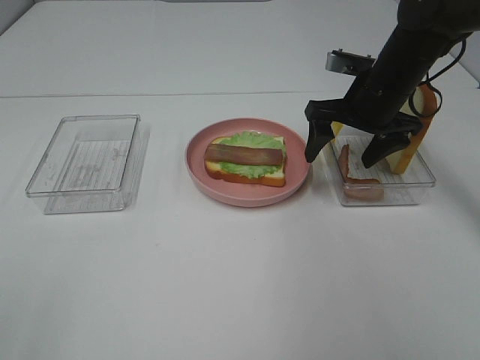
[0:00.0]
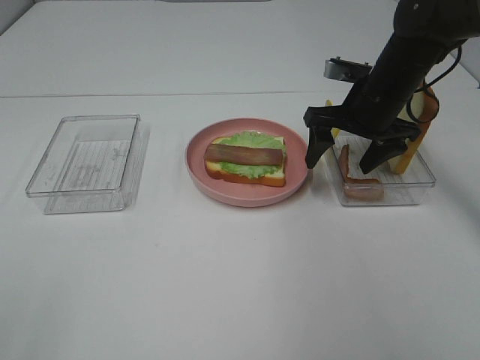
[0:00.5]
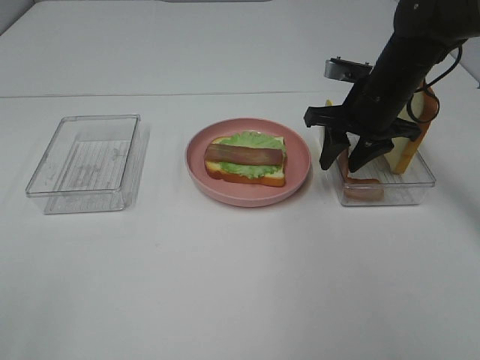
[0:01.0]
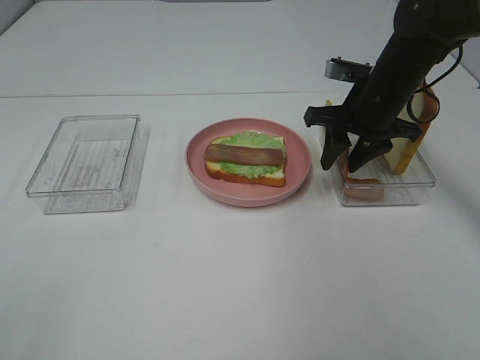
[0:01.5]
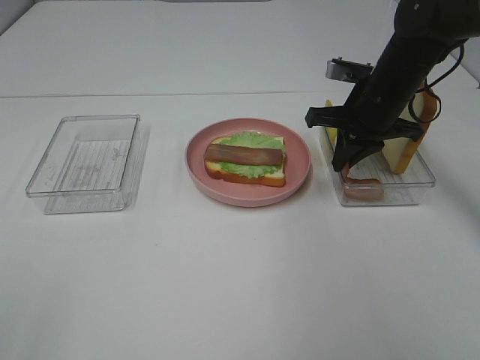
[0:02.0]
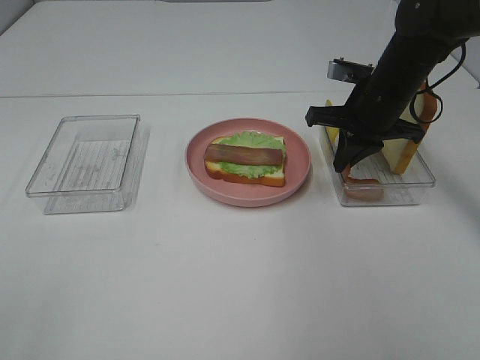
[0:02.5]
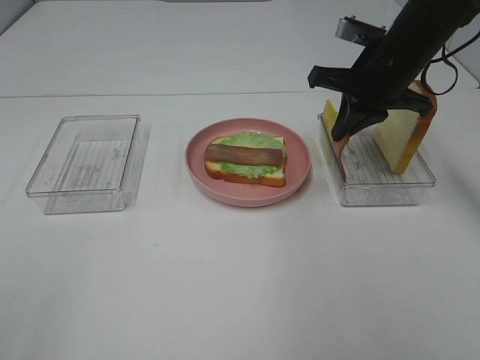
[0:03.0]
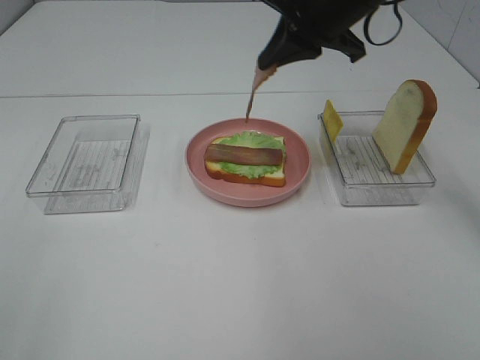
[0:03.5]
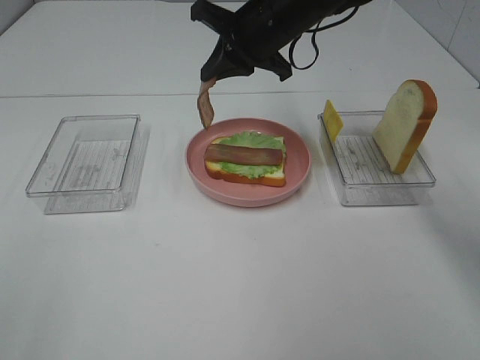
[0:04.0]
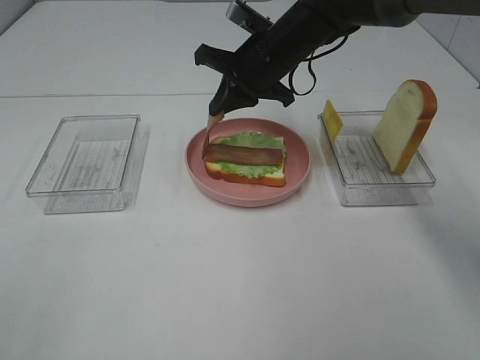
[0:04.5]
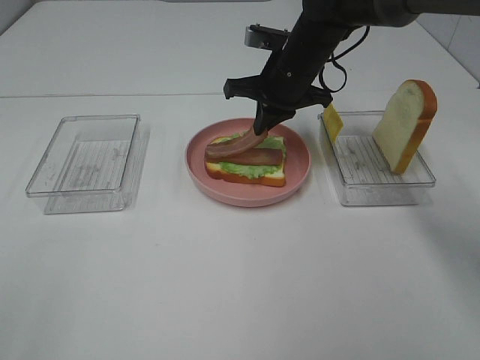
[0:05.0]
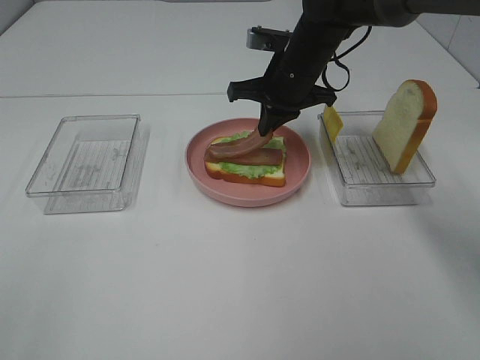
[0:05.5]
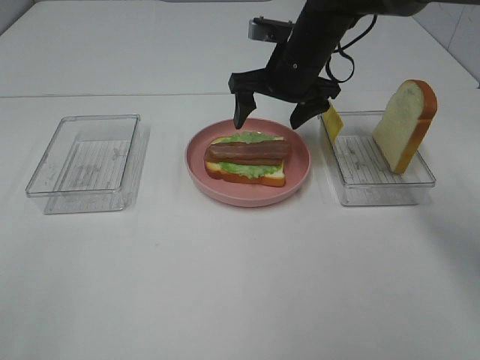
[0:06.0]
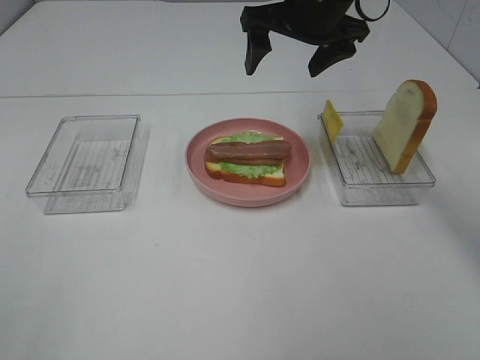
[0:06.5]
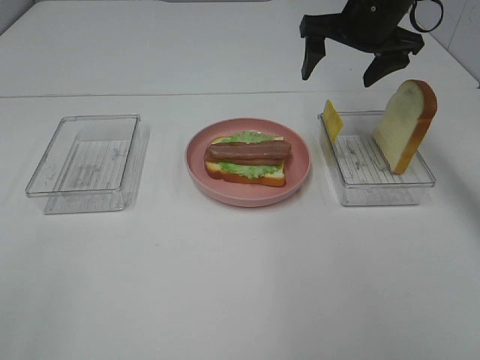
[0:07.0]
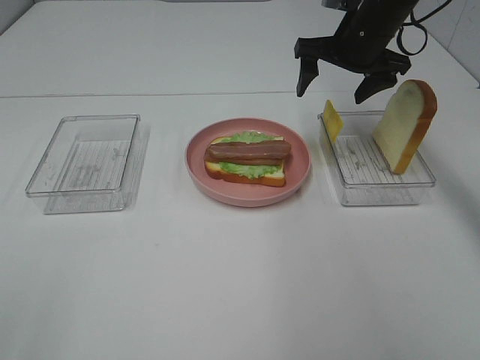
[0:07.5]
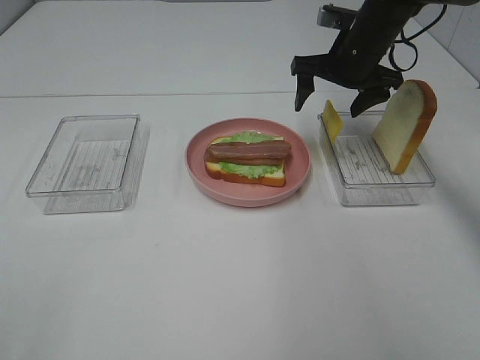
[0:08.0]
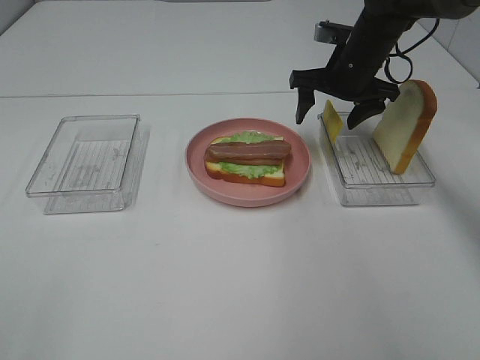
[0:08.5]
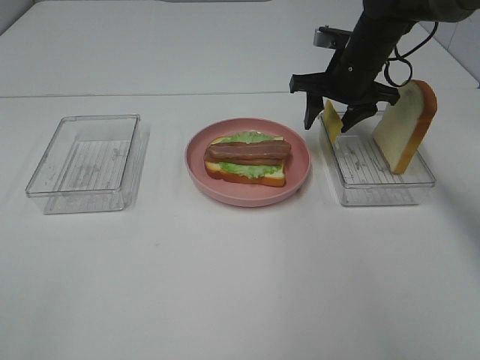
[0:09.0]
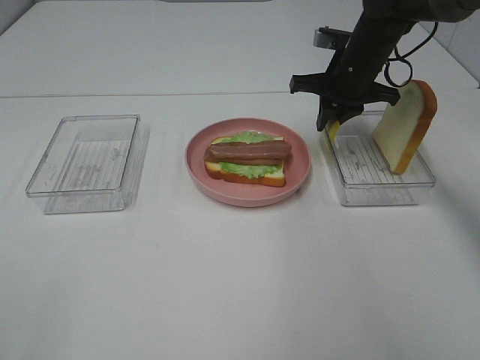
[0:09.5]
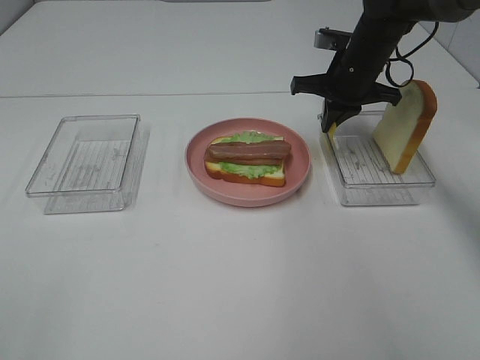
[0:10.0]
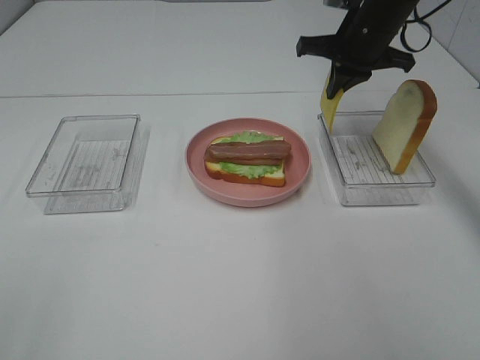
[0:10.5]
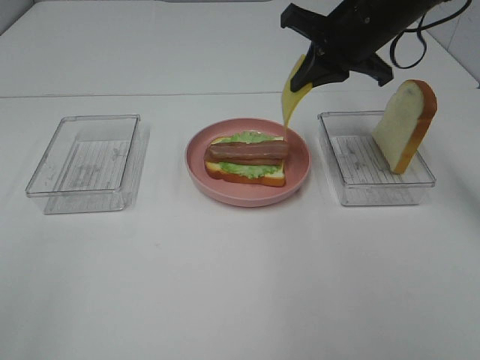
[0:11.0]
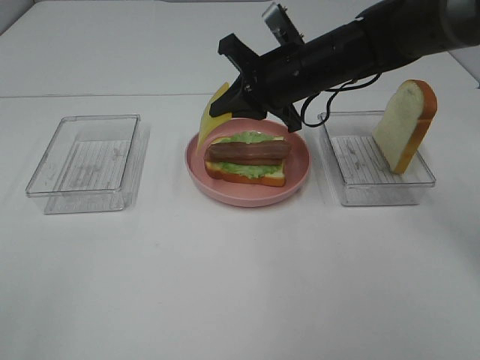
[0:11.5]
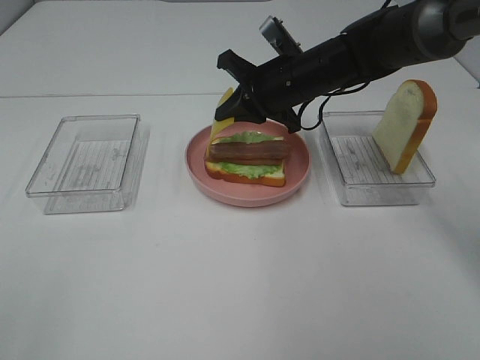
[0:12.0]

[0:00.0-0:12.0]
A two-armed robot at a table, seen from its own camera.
Task of the whole recording: Make sandwiches.
Step, 0:00.0 to 0:02.0: Right hand:grab the bacon.
Step, 0:02.5 to 0:06.0: Right hand:place bacon on bacon.
Step, 0:06.5 to 0:09.5: Right hand:grab the cheese slice.
0:00.0 to 0:02.0: The right gripper closes.
0:02.0 to 0:04.0: The right gripper travels to the left and upward by about 15 cm.
0:04.0 to 0:06.0: The right gripper ends up approximately 5 cm from where it was, and opens its fingers.
0:06.0 to 0:08.0: The right gripper goes approximately 10 cm to the right.
0:08.0 to 0:10.0: The right gripper closes its fingers.
0:10.0 to 0:12.0: The right gripper travels to the left and backward by some 10 cm.

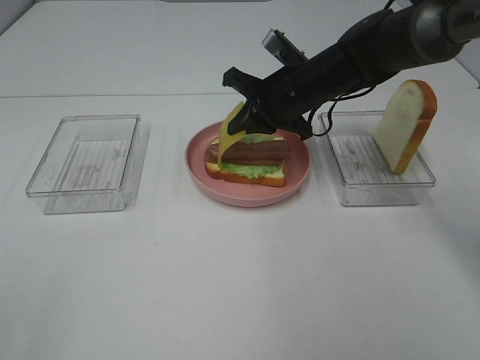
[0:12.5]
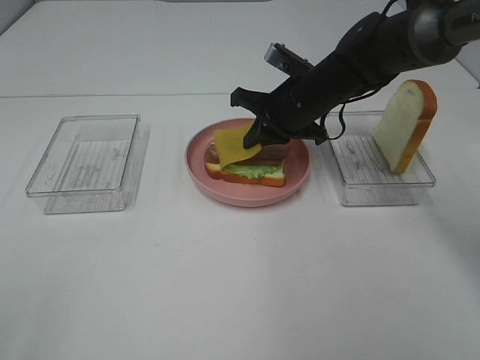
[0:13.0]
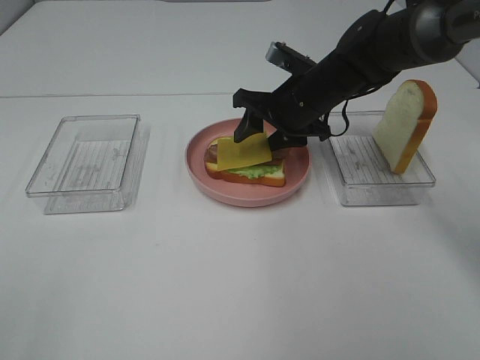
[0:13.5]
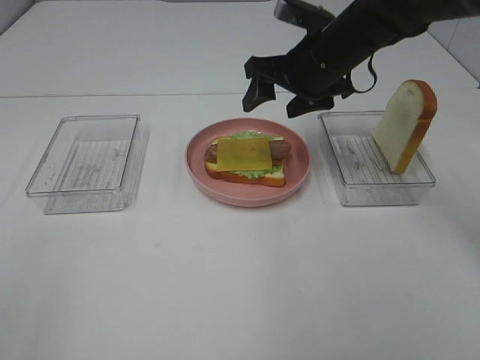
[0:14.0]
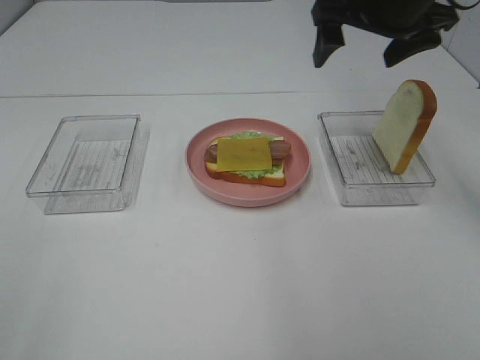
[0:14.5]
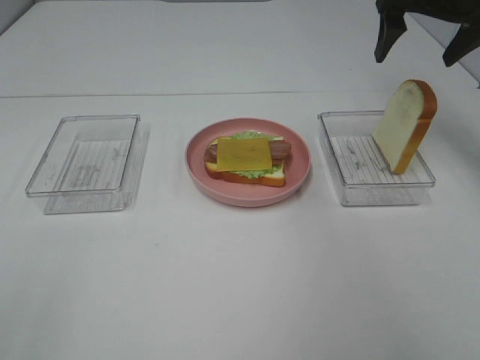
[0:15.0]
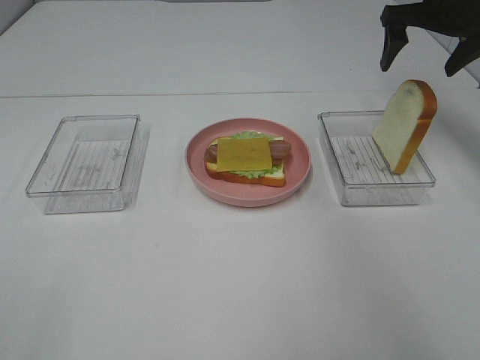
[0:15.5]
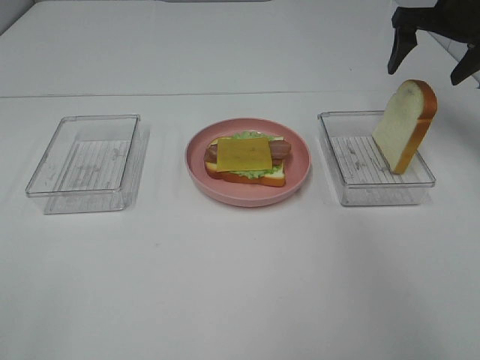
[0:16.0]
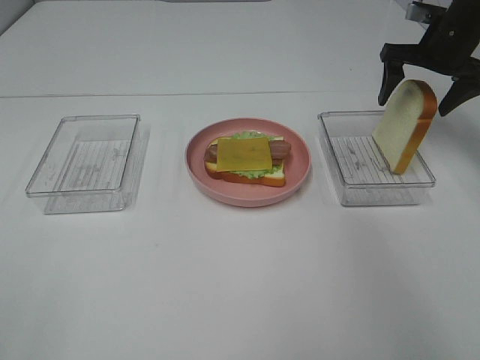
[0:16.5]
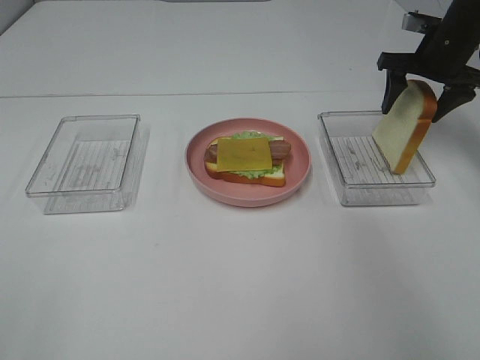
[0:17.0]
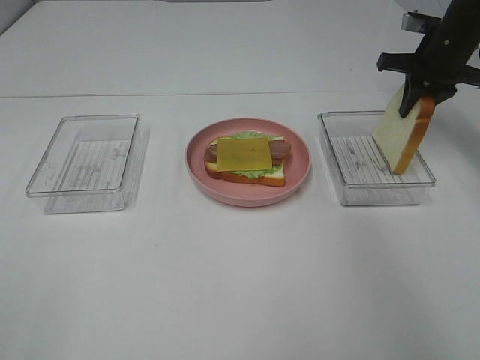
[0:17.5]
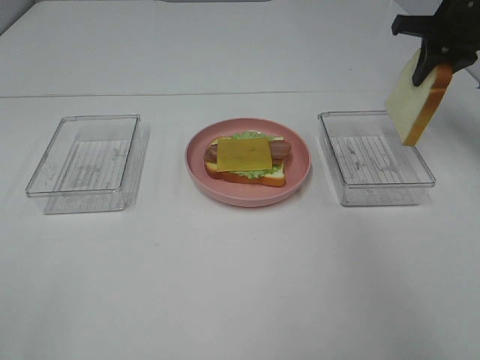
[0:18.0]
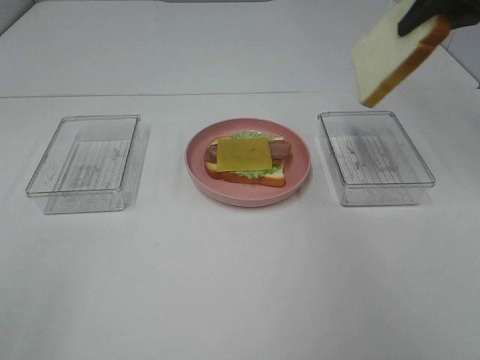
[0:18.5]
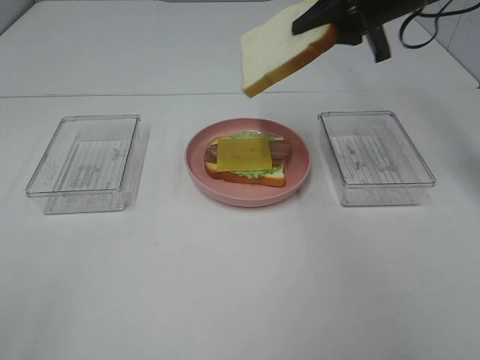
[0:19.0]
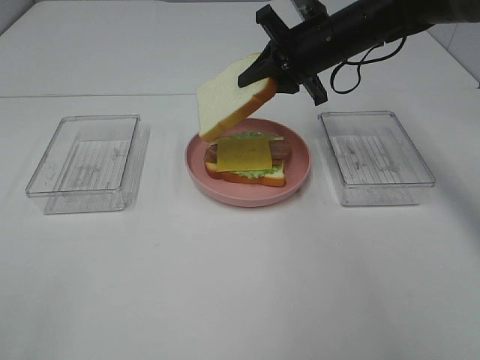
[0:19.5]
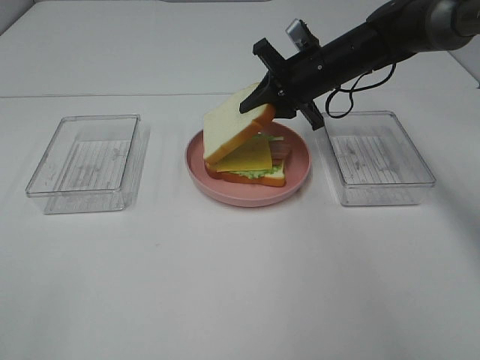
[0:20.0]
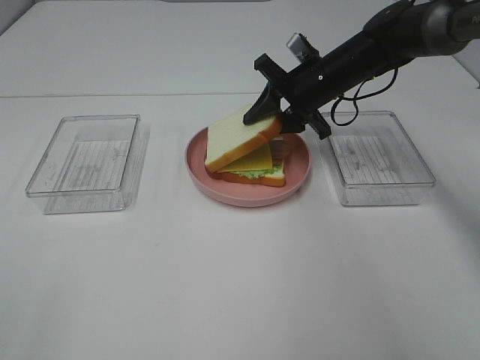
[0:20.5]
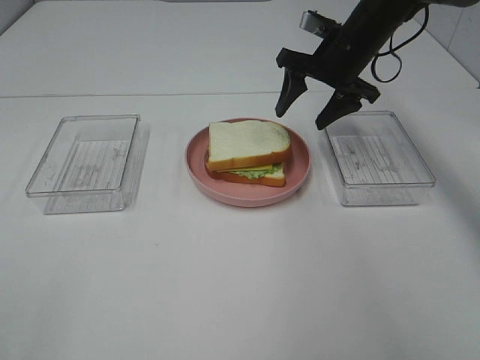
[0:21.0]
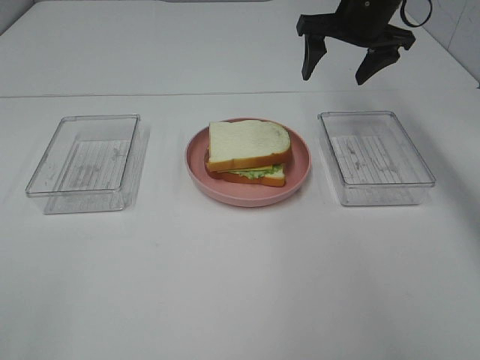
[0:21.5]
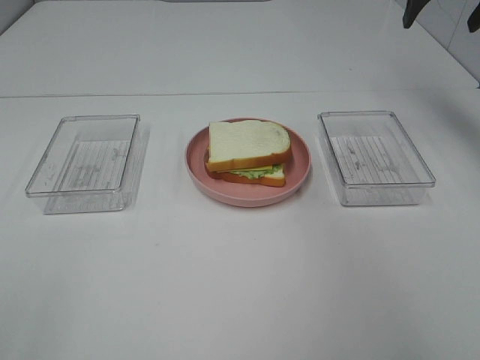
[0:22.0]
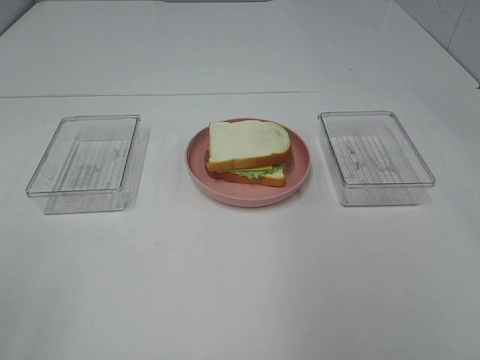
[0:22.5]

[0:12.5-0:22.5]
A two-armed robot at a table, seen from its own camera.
Task of the whole recording: Make sandwiches.
Step, 0:14.0 to 0:17.5: Right hand:grab the bread slice.
Step, 0:18.0 to 0:21.0: Right hand:place the bread slice on the cheese slice.
0:12.5 to 0:14.5: The right gripper goes approximately 20 cm upward and to the right, and opens its fingers.
0:14.5 to 0:16.5: The right gripper heads to the right, forward and downward, covering about 20 cm.
0:16.5 to 0:18.5: The right gripper goes some 15 cm upward and backward, and closes its fingers.
0:18.5 to 0:20.5: The right gripper moves downward and to the left, about 25 cm.
0:20.5 to 0:22.5: The right gripper travels upward, backward and to the right by about 35 cm, and opens its fingers.

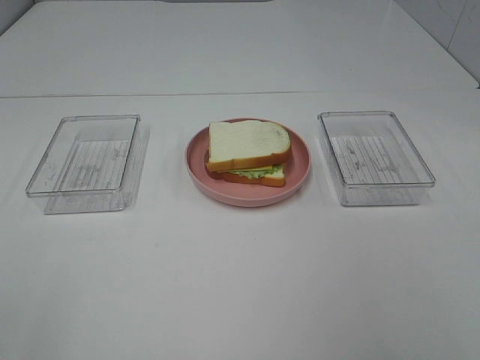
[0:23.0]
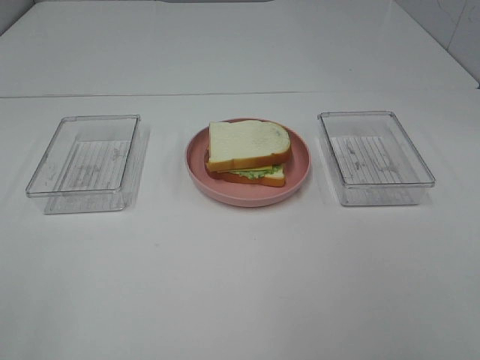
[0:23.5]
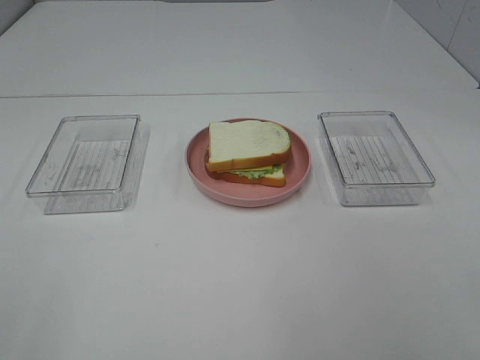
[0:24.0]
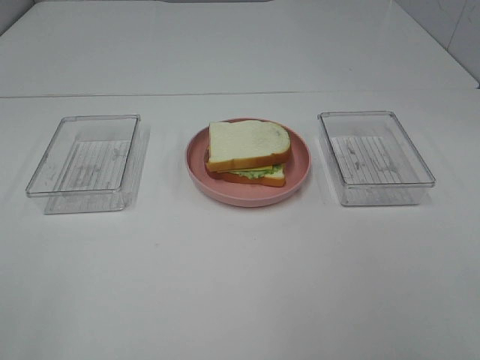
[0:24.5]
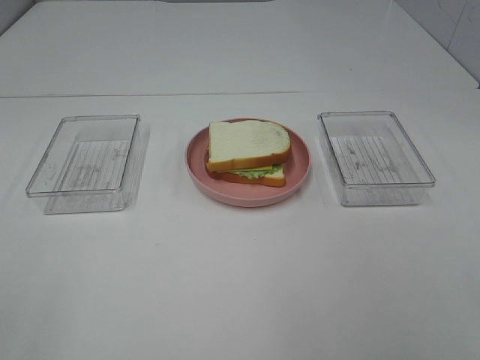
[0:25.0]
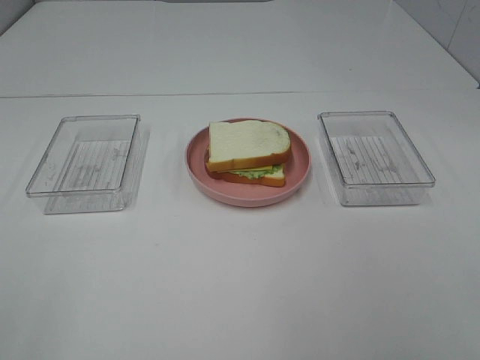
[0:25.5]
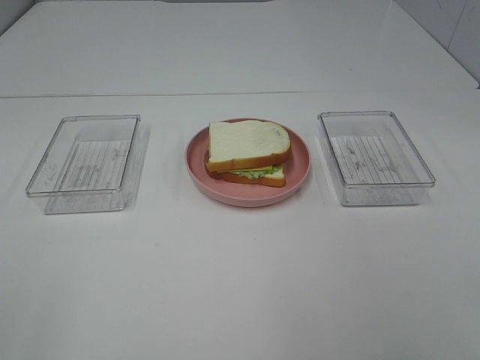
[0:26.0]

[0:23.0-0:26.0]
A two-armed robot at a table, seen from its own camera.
Task of the whole recording: Make sandwiches.
0:24.5 to 0:26.0: The two grippers keep their place.
